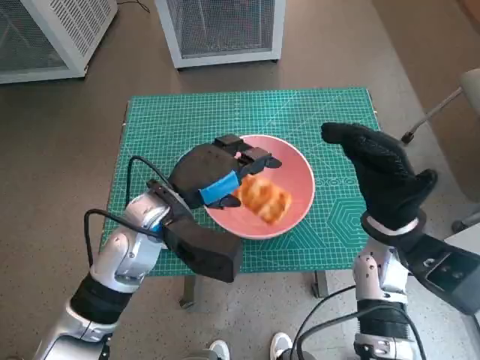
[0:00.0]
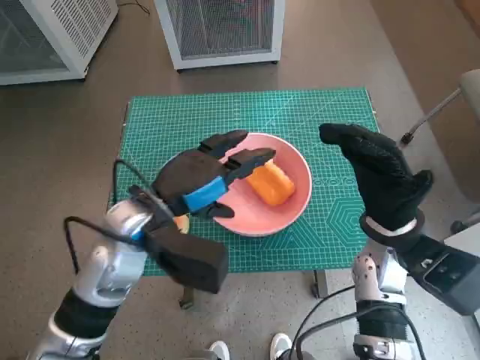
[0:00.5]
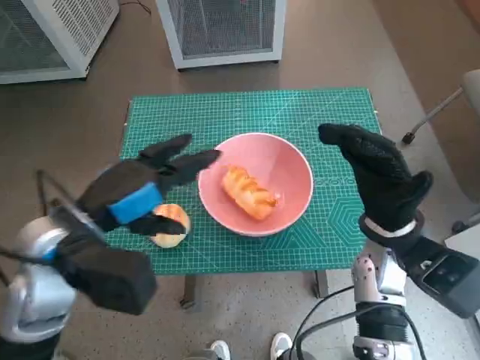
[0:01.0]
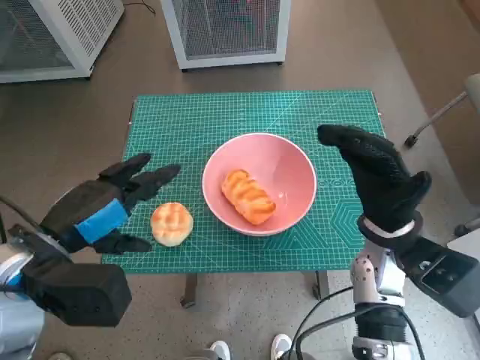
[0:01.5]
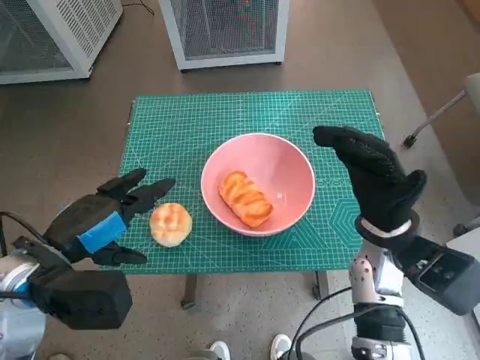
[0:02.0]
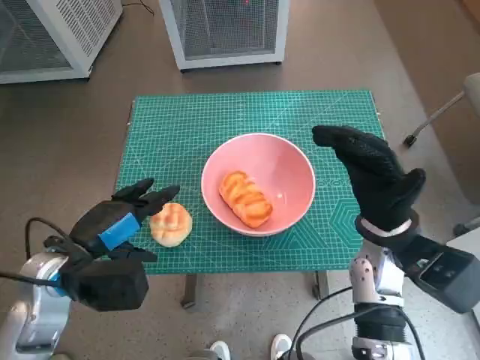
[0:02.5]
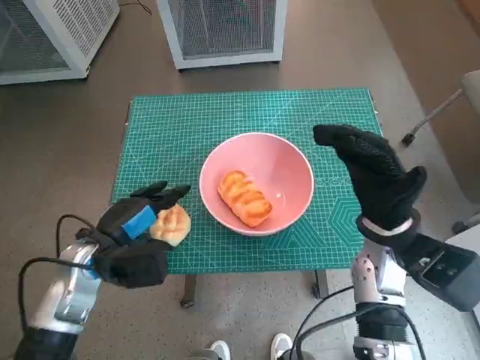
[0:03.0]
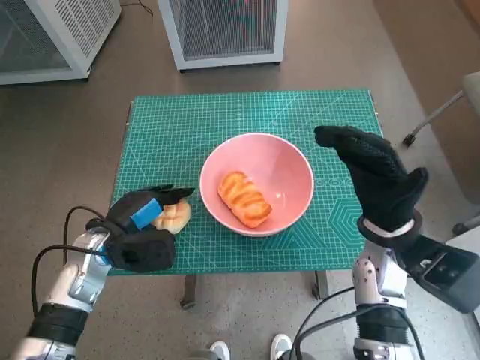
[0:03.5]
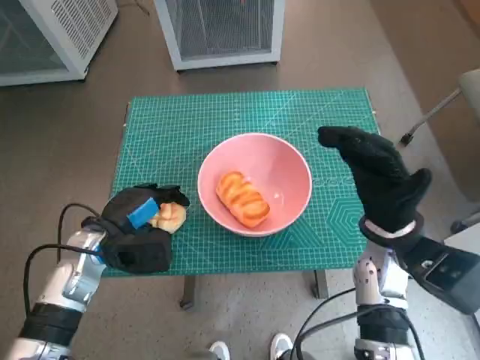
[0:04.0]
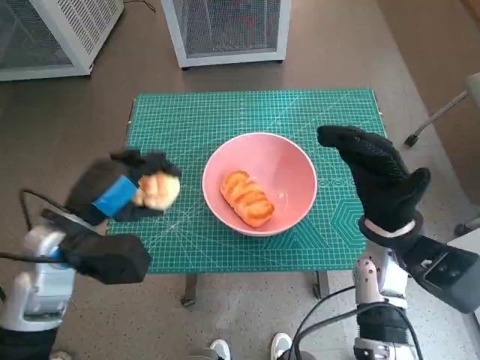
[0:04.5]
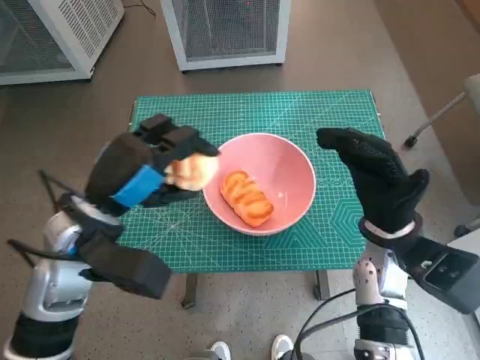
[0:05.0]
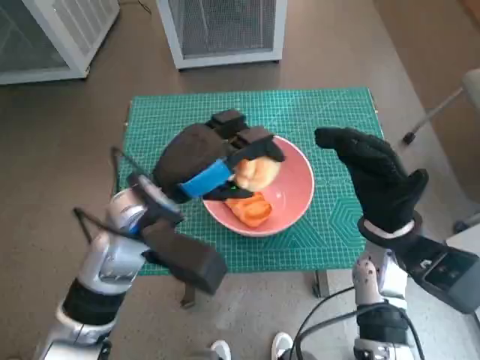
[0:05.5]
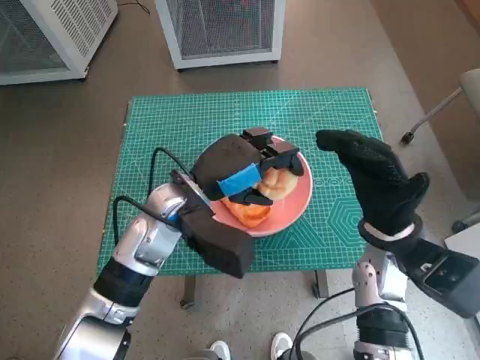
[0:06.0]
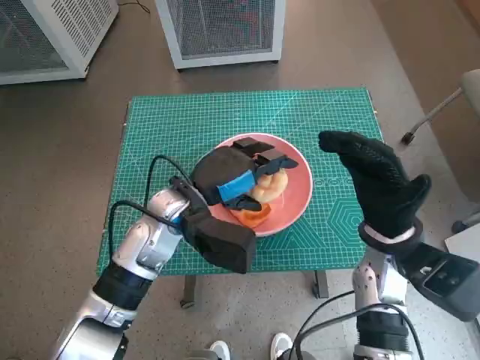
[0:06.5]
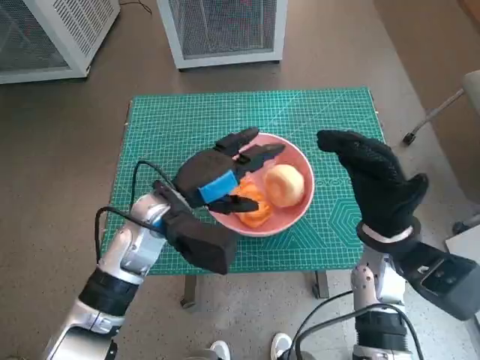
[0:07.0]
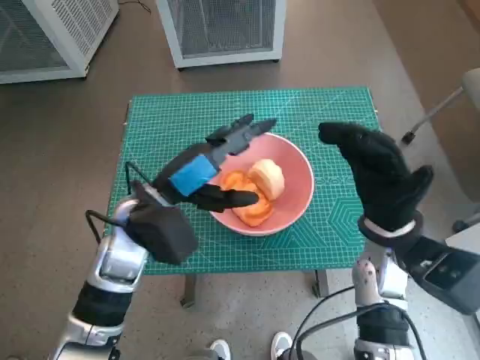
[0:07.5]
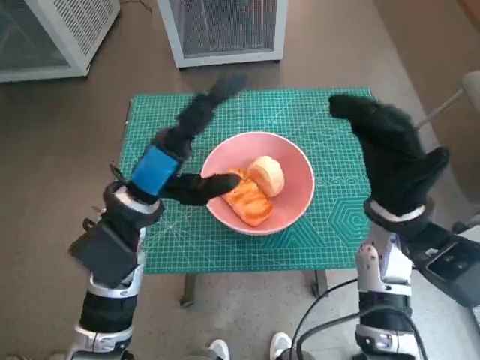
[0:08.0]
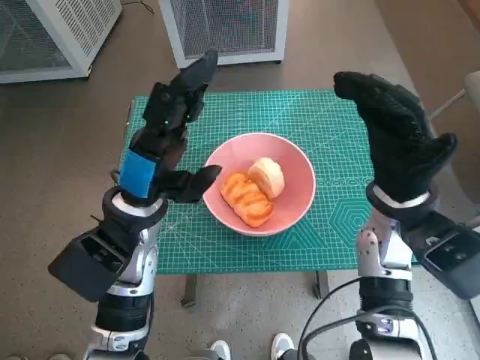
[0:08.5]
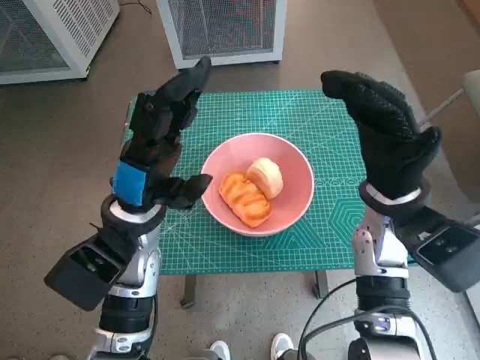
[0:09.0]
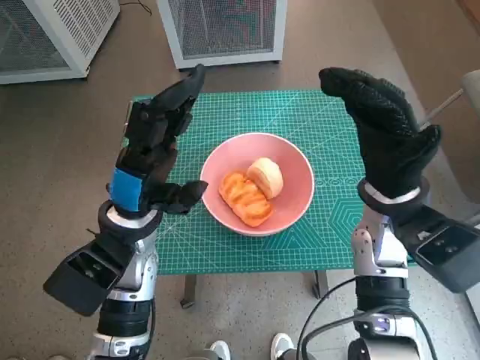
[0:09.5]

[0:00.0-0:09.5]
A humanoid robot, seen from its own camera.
Task of the whole recording: Push the bowl into the center of the table and put the bread into the bowl.
Step, 0:00.5 to 0:03.0: Grasp the round bread with left hand.
Step, 0:03.5 to 0:06.5: Place the round bread in pink bowl with left hand.
0:00.0 to 0:02.0: The left hand travels to the left and backward by some 15 cm.
0:02.0 to 0:04.0: The left hand moves downward and forward, approximately 15 cm.
0:04.0 to 0:05.5: The left hand travels upward and to the right by about 15 cm.
0:07.5 to 0:09.5: The right hand shifts by approximately 5 cm.

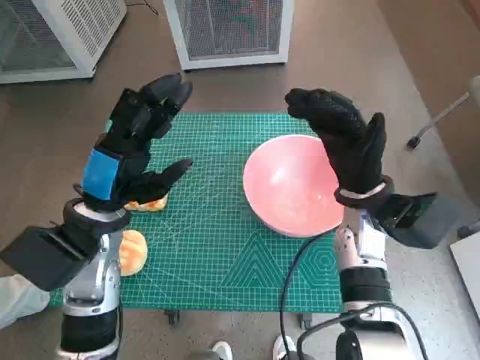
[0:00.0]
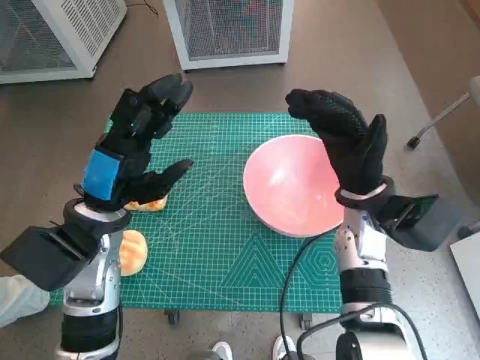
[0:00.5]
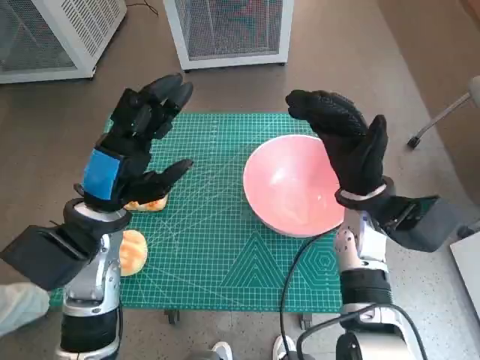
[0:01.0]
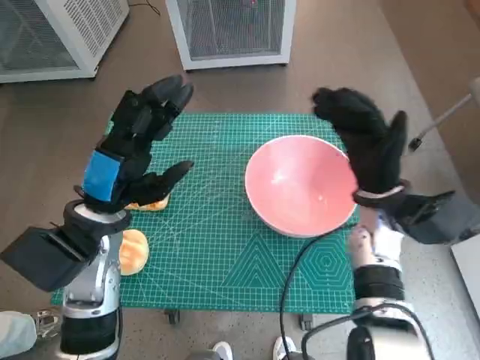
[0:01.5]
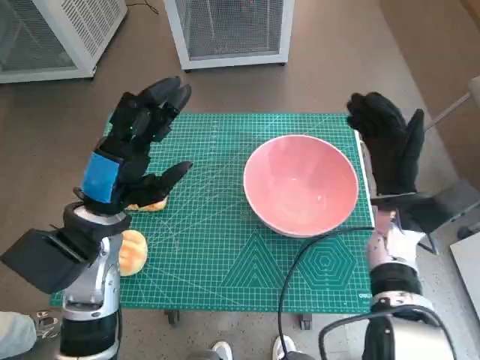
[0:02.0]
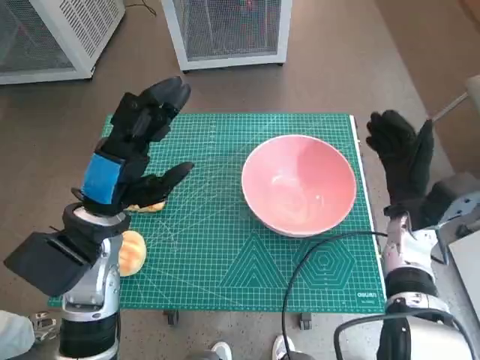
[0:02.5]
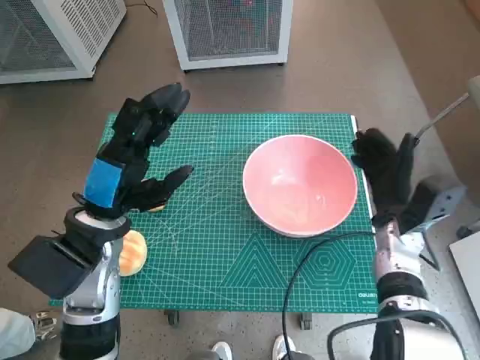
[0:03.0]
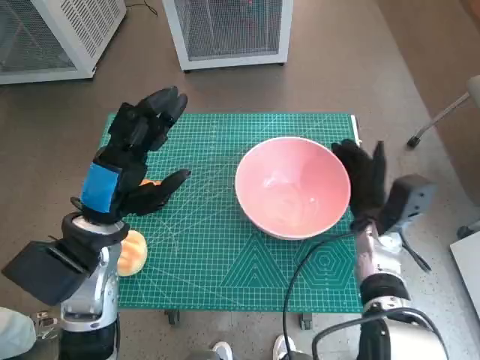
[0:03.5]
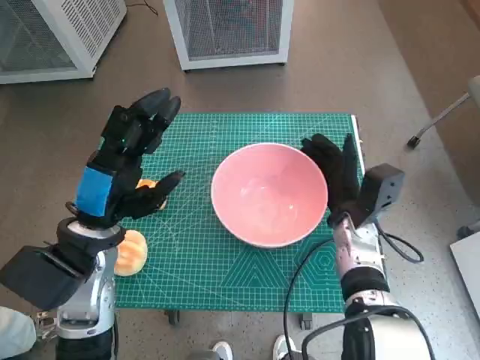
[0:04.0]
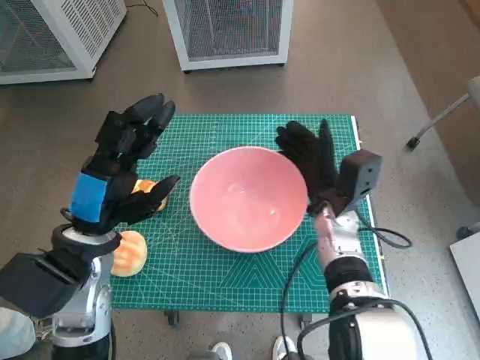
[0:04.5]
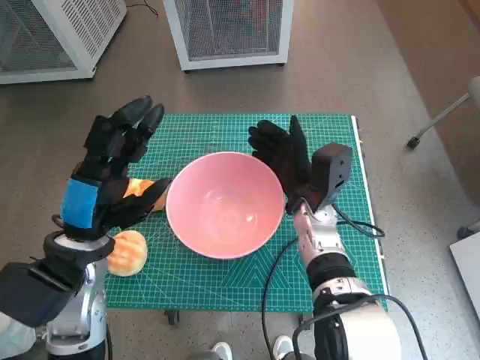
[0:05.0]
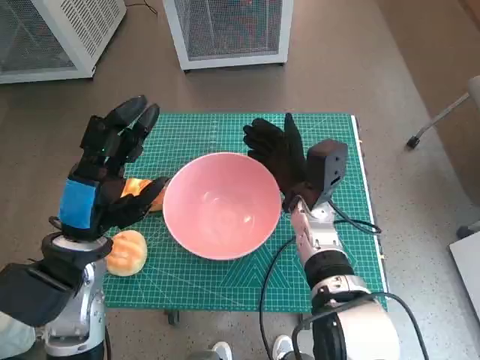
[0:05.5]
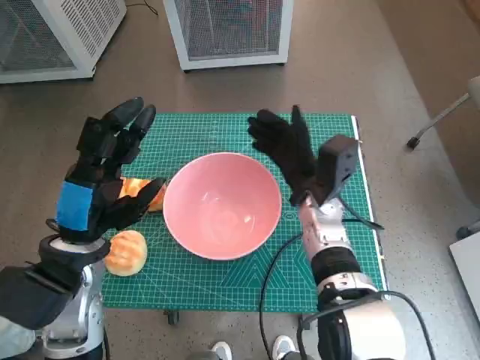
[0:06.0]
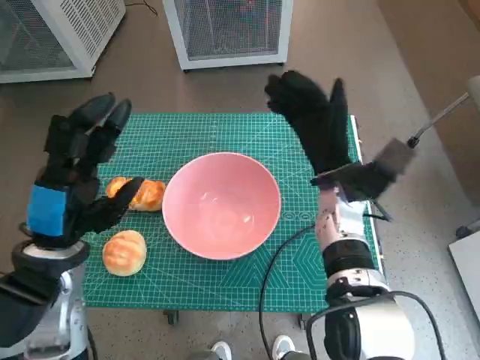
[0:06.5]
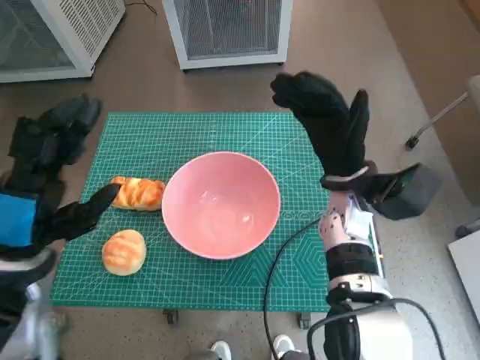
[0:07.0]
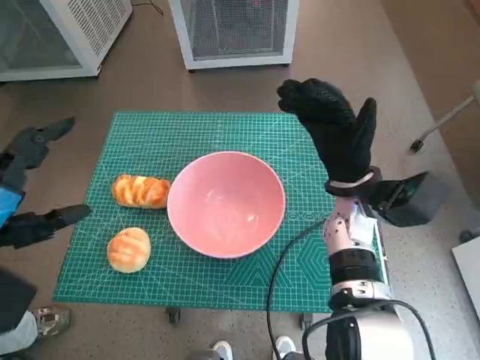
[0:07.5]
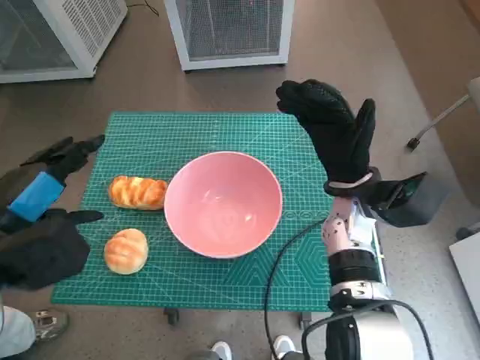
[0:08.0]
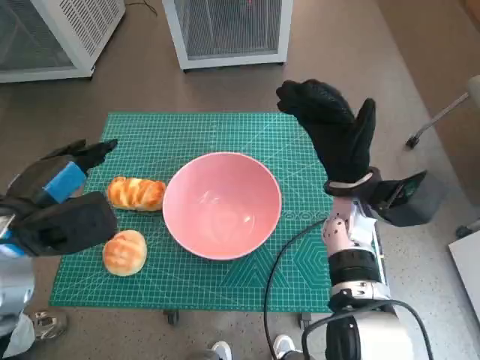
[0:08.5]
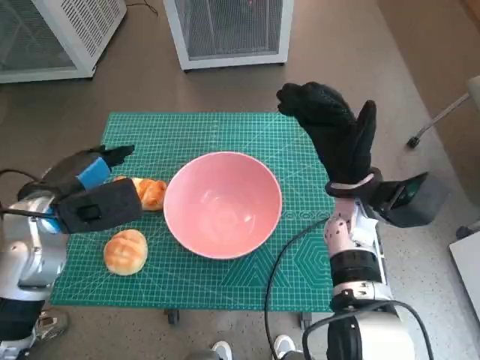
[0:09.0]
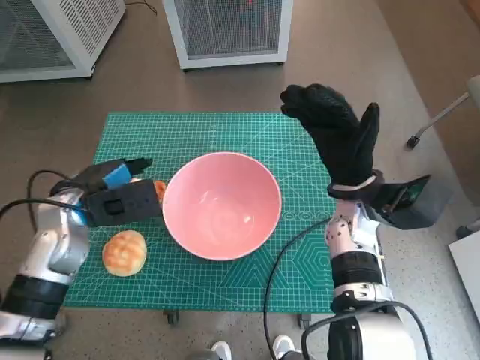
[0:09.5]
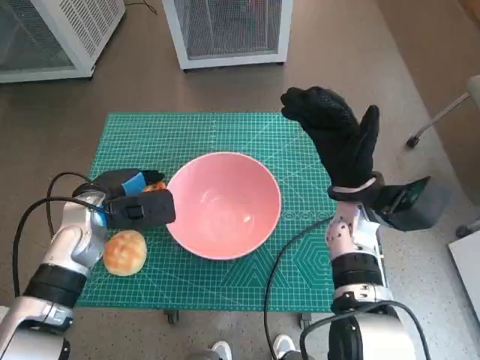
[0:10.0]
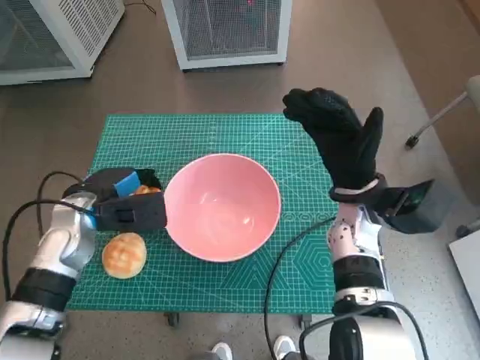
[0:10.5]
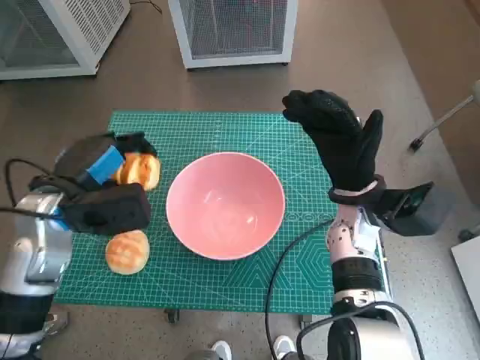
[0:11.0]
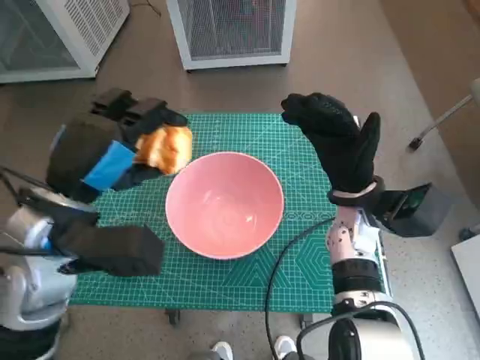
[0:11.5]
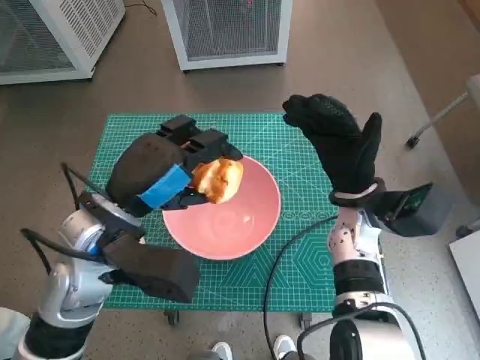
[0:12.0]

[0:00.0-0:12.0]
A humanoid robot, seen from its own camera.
Task of the whole recording: Push the bowl into the center of the table and put the bread into the bowl.
Step, 0:00.0 to 0:05.5: Move the pink bowl to the center of table with right hand.
Step, 0:06.5 to 0:10.0: Grasp the long bread with left hand.
0:02.0 to 0:04.0: The right hand shifts by about 5 cm.
0:04.0 to 0:06.0: The right hand heads to the left, covering approximately 5 cm.
0:06.0 to 0:08.0: The right hand moves about 5 cm. Meanwhile the left hand heads to the left and upward, covering some 10 cm.
0:08.0 to 0:10.0: The left hand travels forward and downward by approximately 15 cm.
0:10.0 to 0:12.0: The left hand shifts about 15 cm upward, to the right and backward.

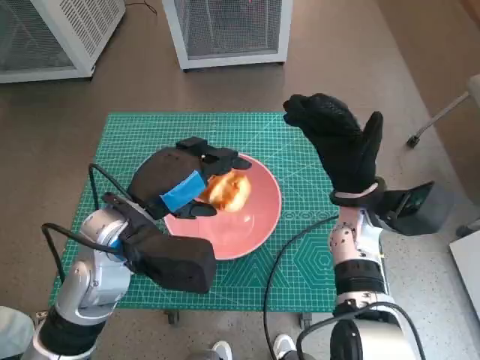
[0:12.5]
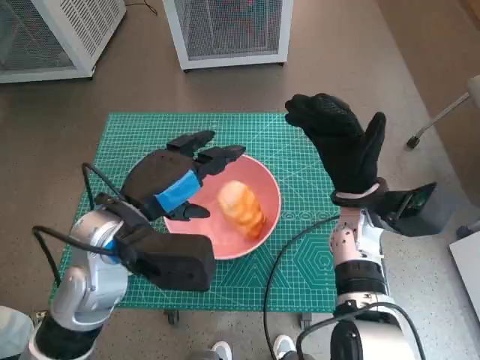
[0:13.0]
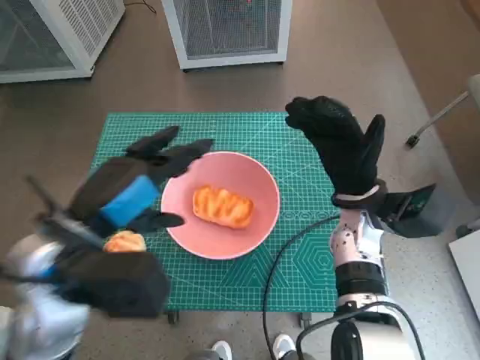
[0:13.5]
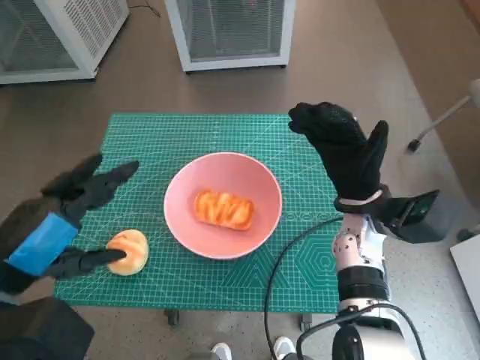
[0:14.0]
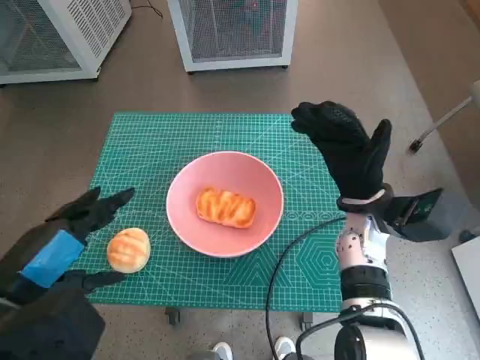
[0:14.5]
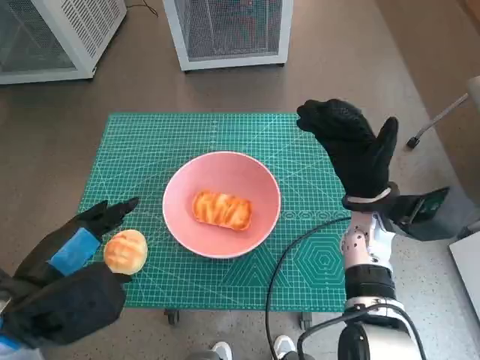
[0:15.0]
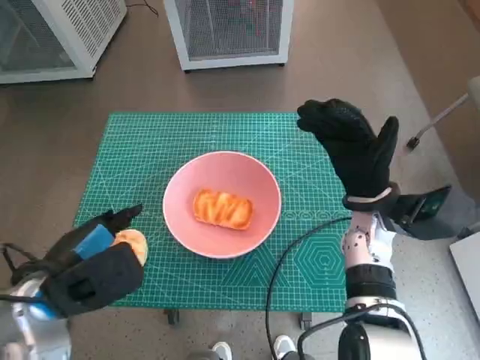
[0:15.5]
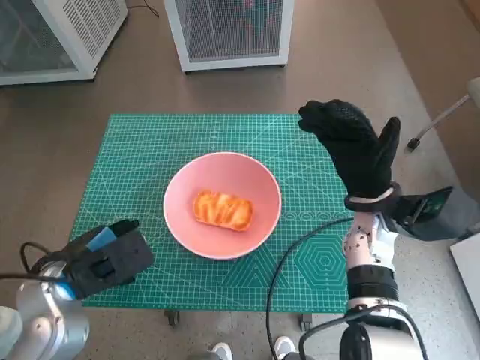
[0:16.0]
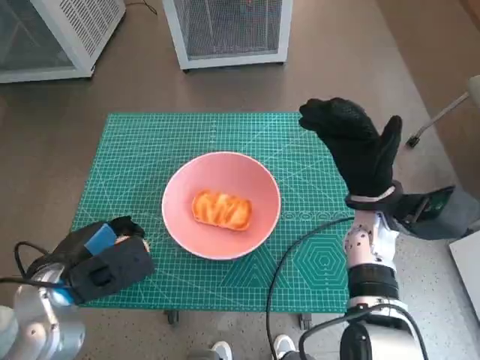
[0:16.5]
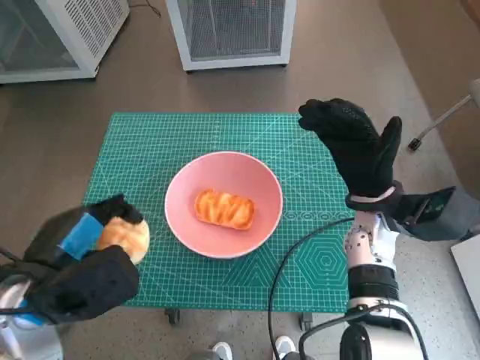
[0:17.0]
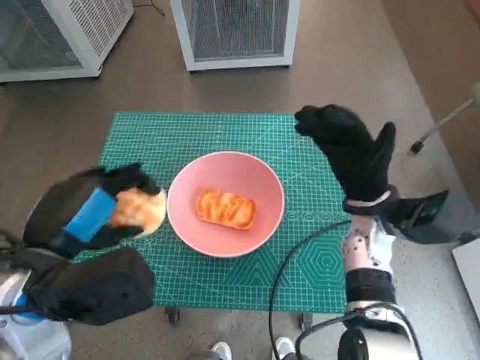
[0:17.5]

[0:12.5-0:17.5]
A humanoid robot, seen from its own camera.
Task of the whole recording: Push the bowl into the center of the table and put the bread into the bowl.
Step, 0:13.0 to 0:16.0: Grasp the round bread with left hand.
0:12.5 to 0:15.0: The left hand goes approximately 10 cm backward and to the left.
0:15.0 to 0:17.5: The left hand travels downward and back again, roughly 5 cm each way.
